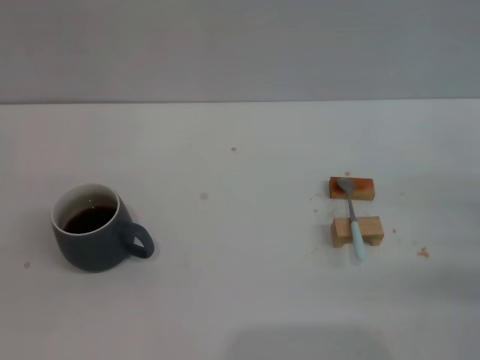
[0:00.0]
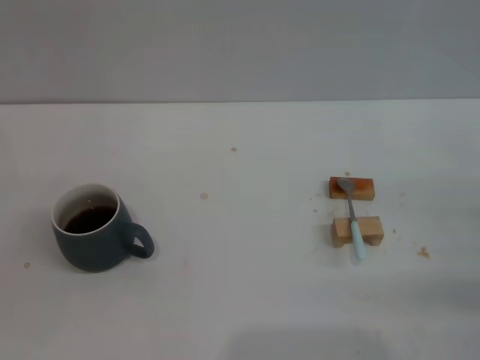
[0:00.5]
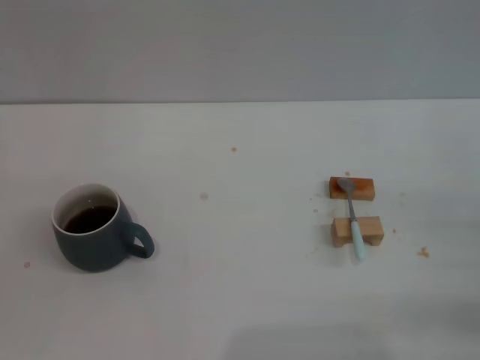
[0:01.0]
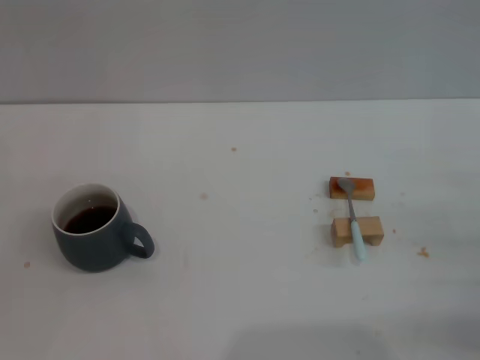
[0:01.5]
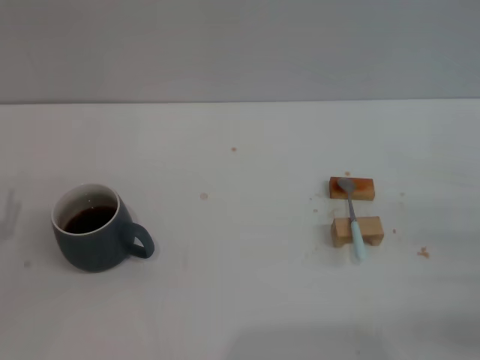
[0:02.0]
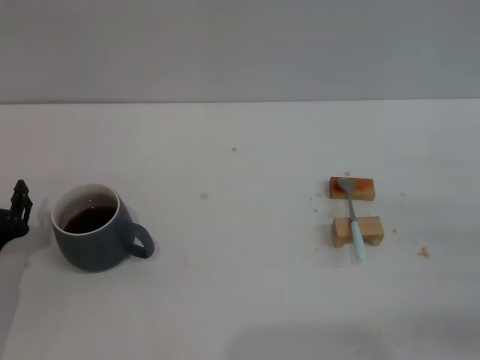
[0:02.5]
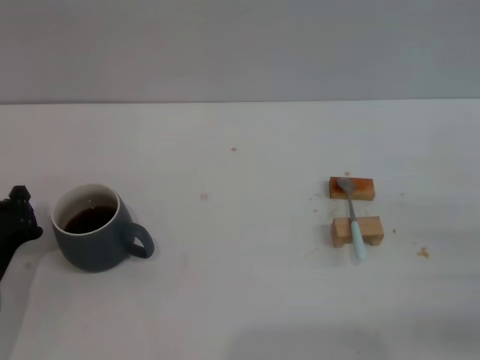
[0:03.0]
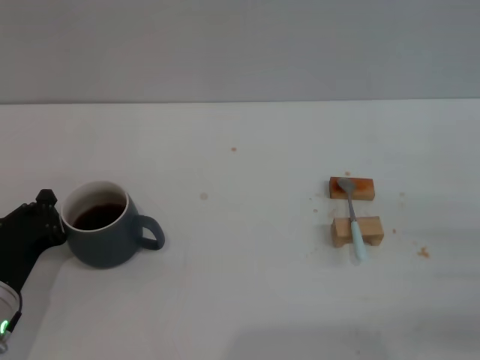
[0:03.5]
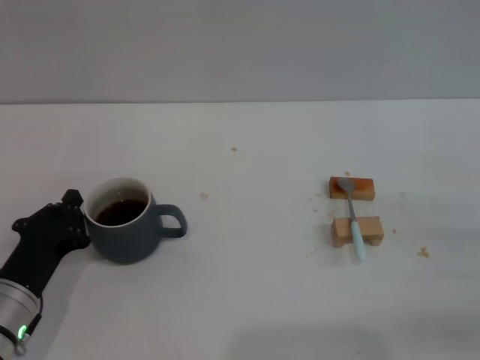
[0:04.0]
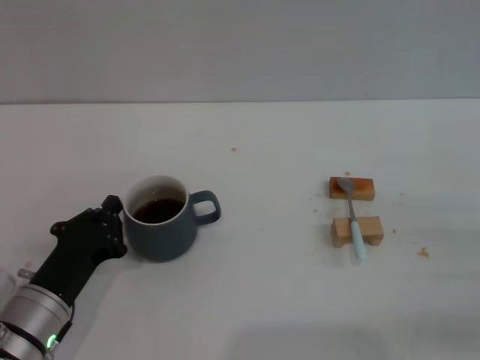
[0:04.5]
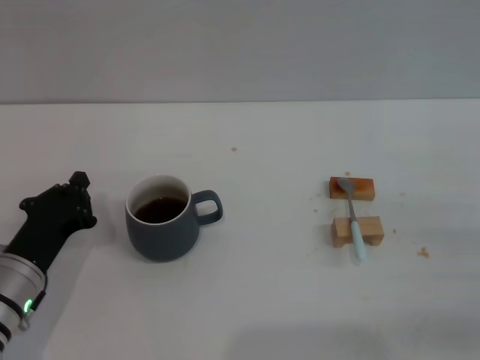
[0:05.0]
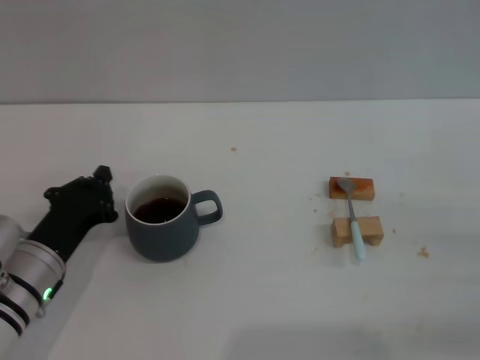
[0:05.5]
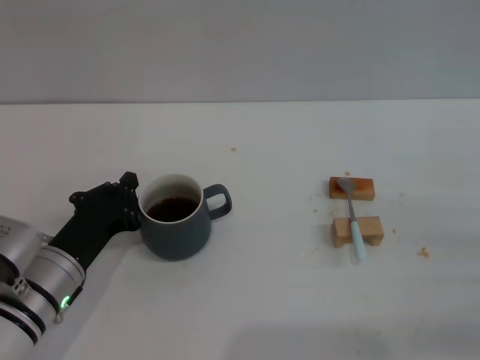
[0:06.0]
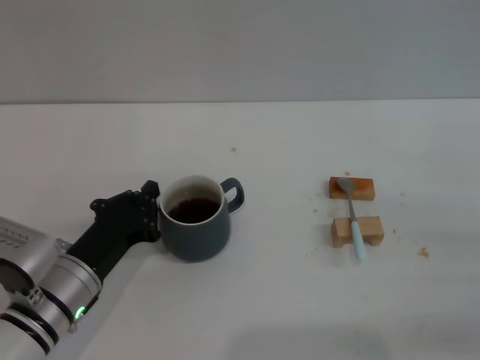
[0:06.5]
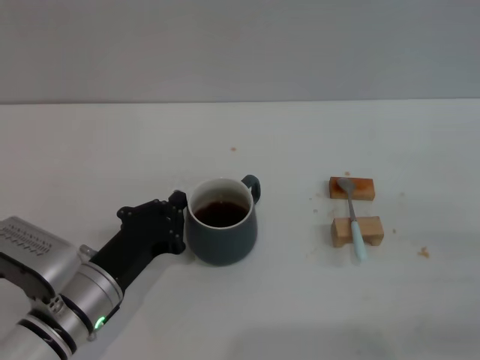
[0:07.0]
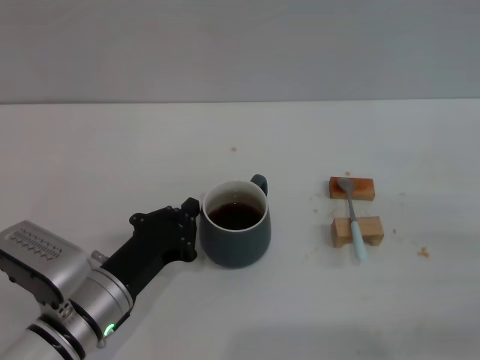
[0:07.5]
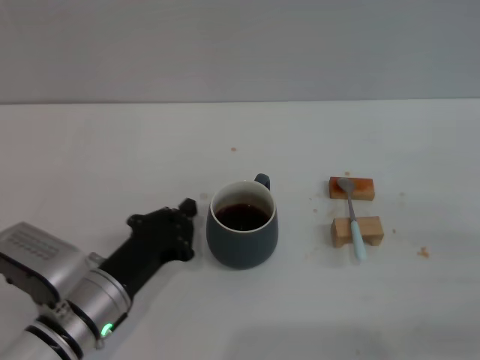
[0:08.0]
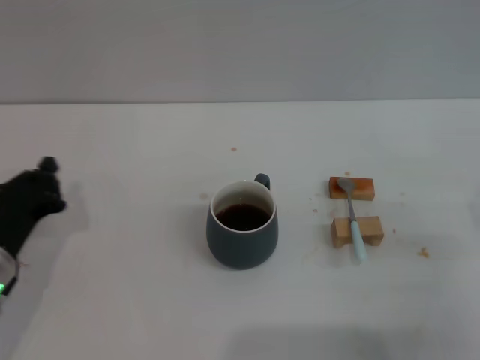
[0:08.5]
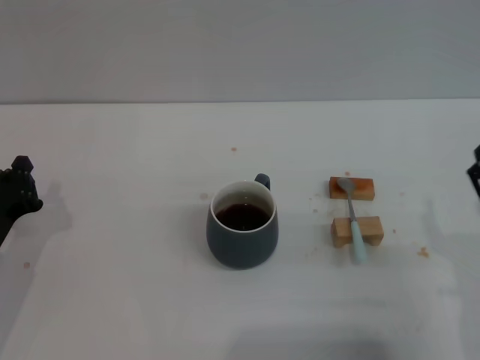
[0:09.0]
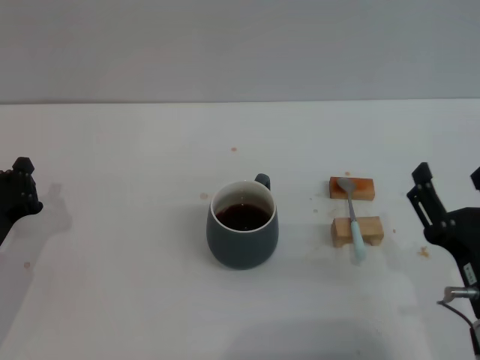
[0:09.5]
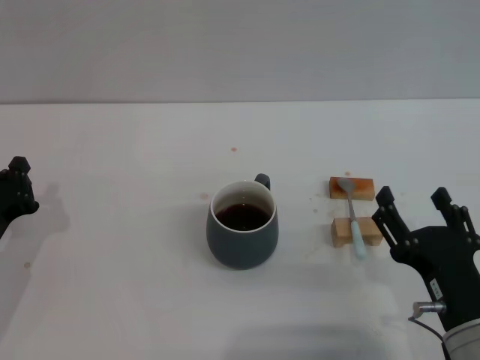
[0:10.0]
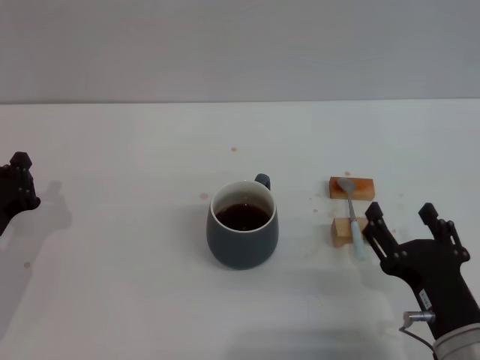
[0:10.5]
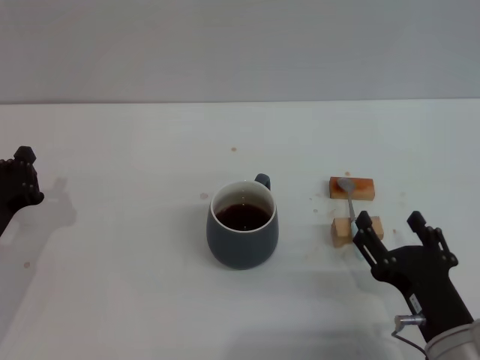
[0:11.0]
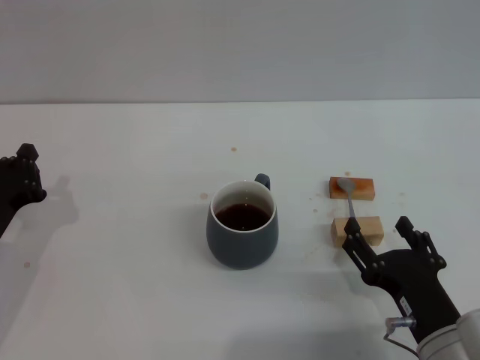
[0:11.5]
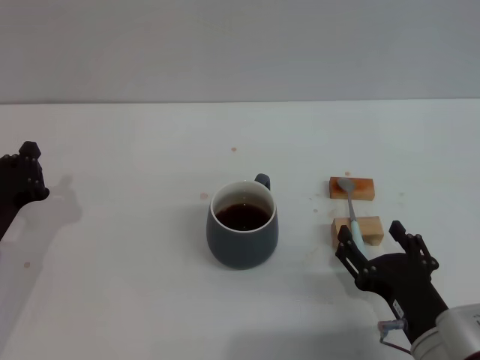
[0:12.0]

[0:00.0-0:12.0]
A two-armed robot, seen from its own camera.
Task of the whole recording: Move the grey cup to the center, lift the blue spoon, stir it three times in the cup, and put the spoon into the cup.
Step, 0:00.0 to 0:08.0: Move the cup with coffee to the center of view with the left gripper.
0:02.0 to 0:04.0: The left gripper is displaced to the right by roughly 10 cm, and closes its fingers.
0:04.0 to 0:06.0: The grippers move only a little.
0:06.0 to 0:08.0: There are only small adjustments of the grippers.
0:08.0 to 0:10.0: The grippers both shift to the left by roughly 15 cm.
0:10.0 to 0:12.0: The grippers move only a little.

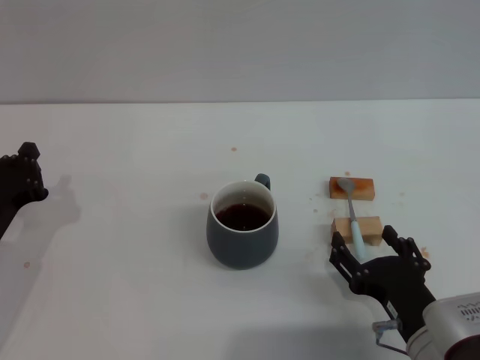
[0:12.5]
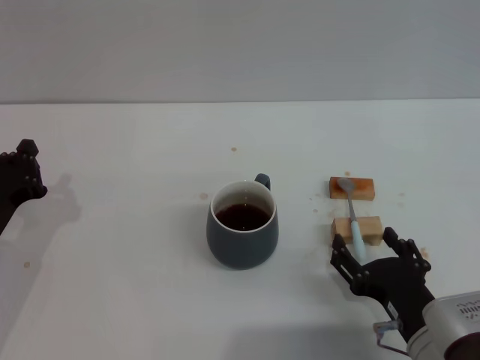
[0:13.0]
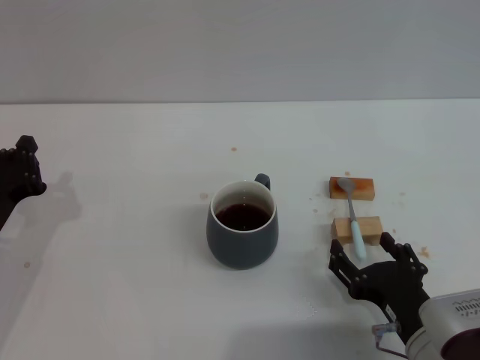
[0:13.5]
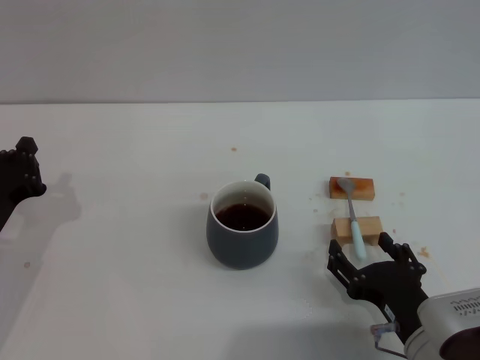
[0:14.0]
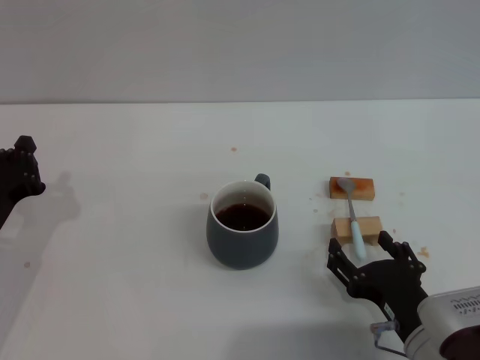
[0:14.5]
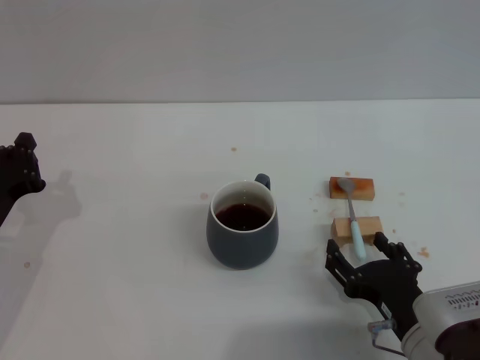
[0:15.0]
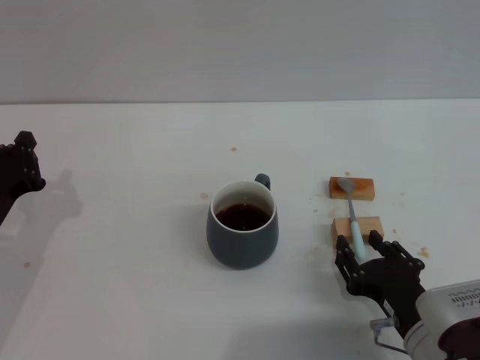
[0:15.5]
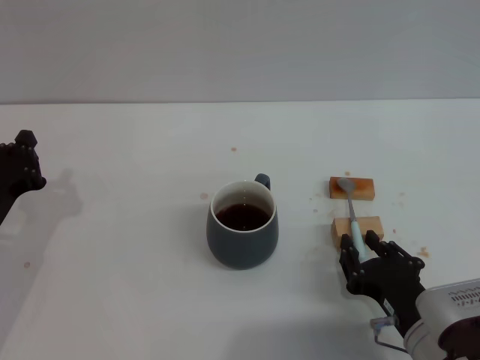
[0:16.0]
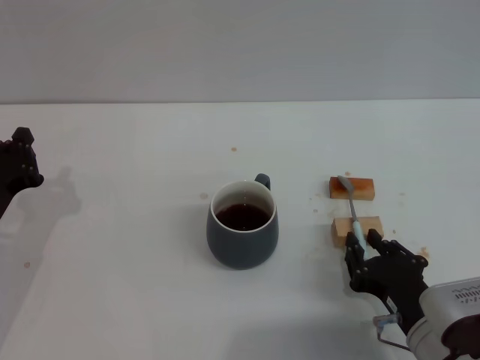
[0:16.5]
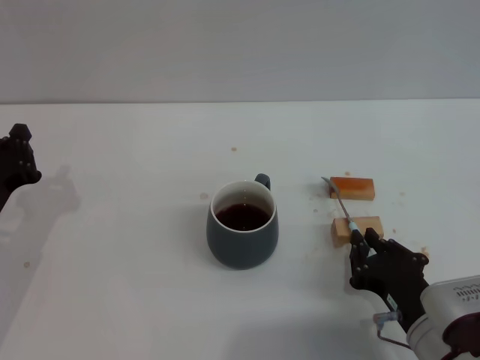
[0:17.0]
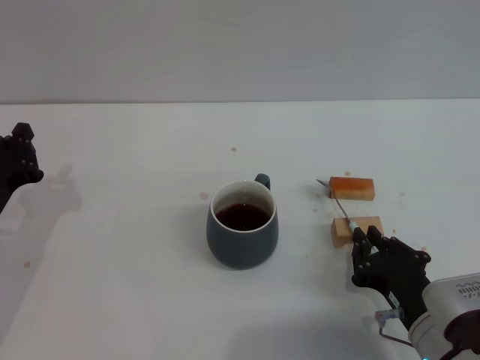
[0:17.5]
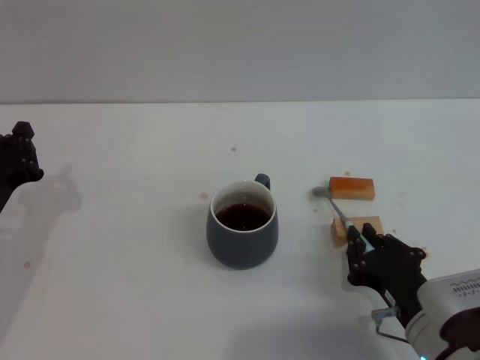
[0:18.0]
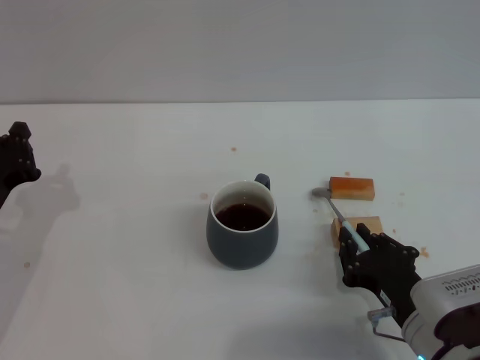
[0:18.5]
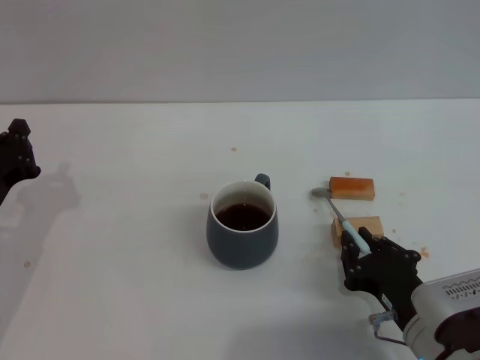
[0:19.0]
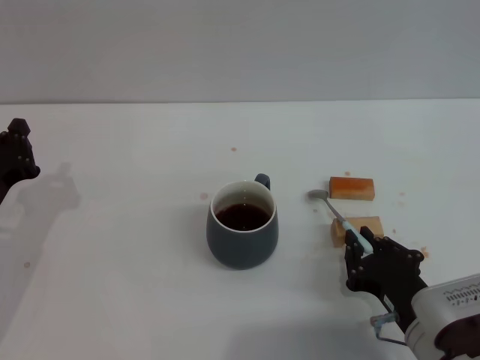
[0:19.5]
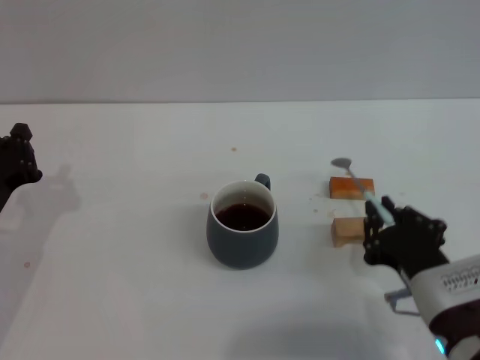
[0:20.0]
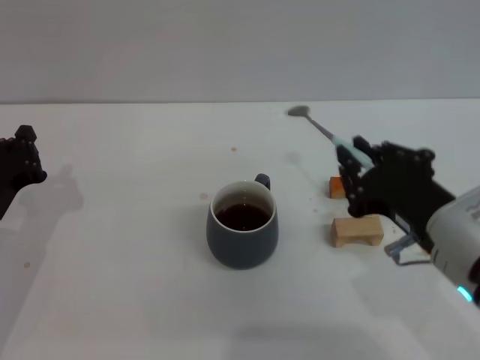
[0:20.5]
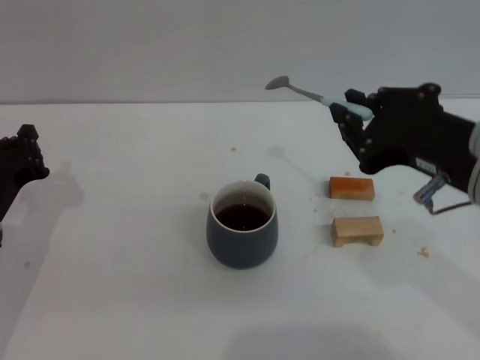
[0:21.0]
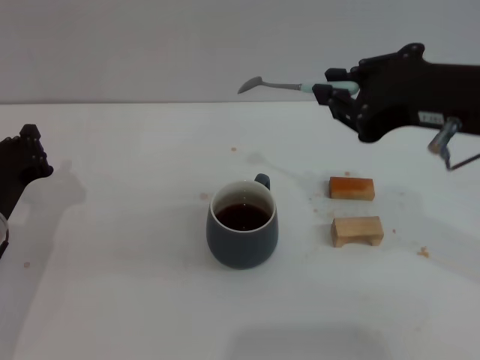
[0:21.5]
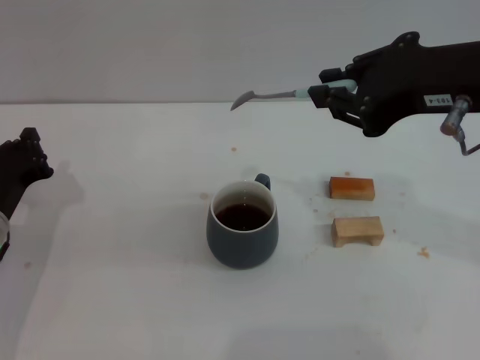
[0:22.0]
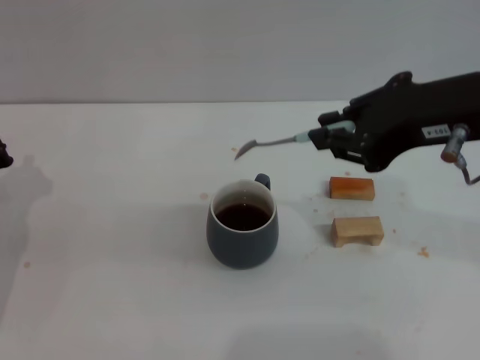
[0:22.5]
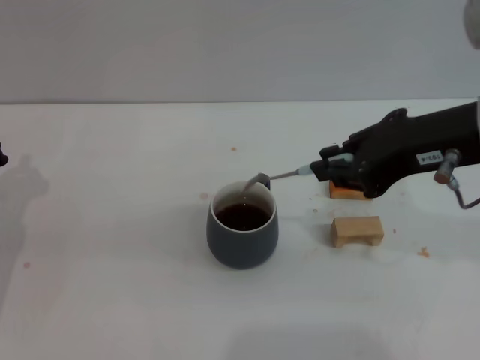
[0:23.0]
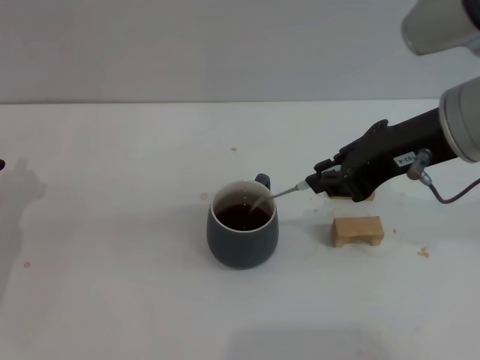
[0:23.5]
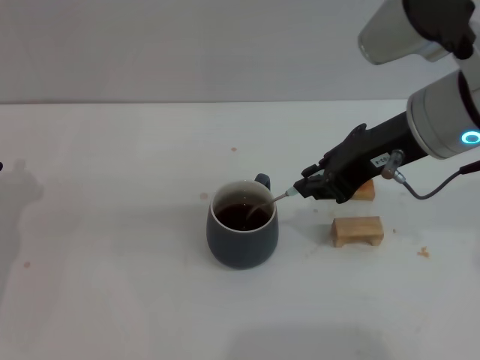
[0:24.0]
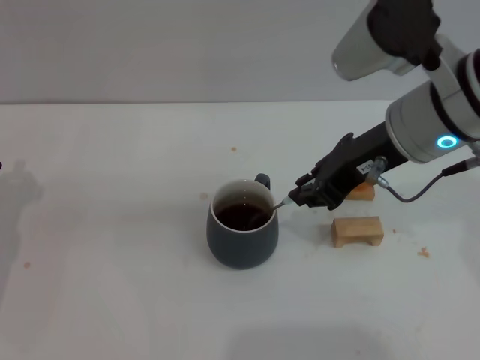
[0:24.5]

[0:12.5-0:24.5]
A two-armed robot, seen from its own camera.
Task of the whole recording: Move the grey cup to the center, lift the blue spoon, stir it three times in the cup, and put the spoon into the cup.
Step, 0:12.5 to 0:20.0: Pick up the spoon with the right gripper.
0:12.5 to 0:14.5: Both grippers stay about where they are.
0:14.5 to 0:16.5: The right gripper closes up.
0:16.5 to 0:18.5: Both grippers stay put.
0:18.5 to 0:20.5: The right gripper heads upward, covering about 15 cm.
0:20.5 to 0:22.5: The right gripper moves upward and forward, some 15 cm.
0:22.5 to 0:24.5: The right gripper heads forward and downward, covering some 10 cm.

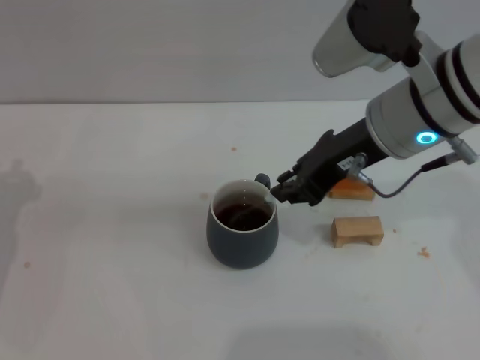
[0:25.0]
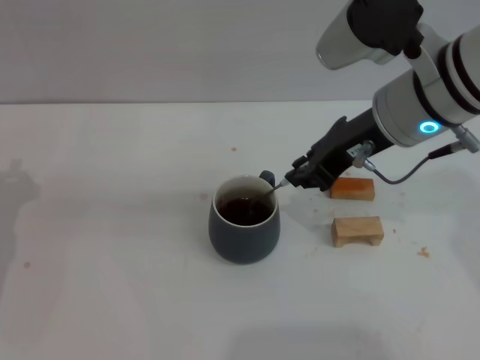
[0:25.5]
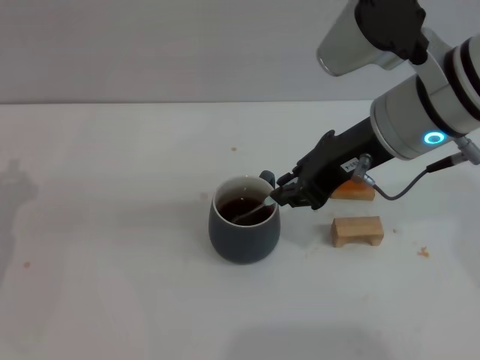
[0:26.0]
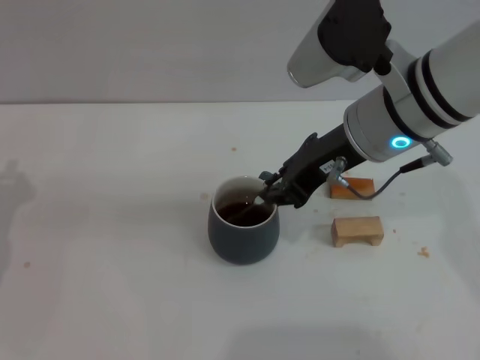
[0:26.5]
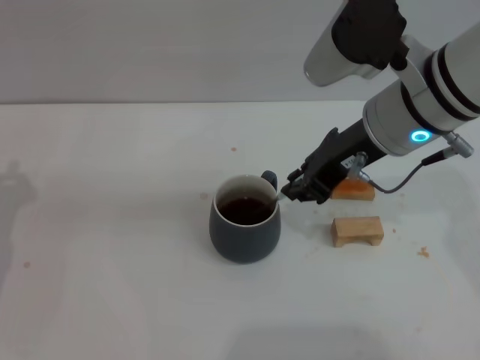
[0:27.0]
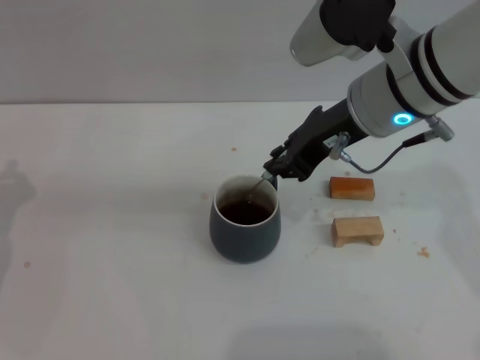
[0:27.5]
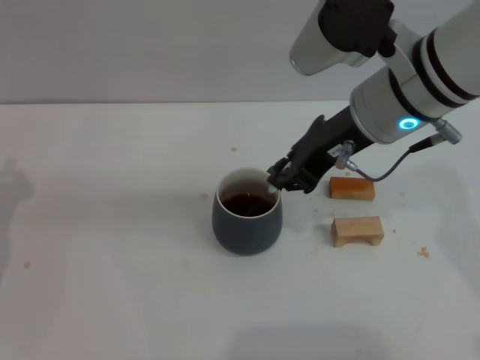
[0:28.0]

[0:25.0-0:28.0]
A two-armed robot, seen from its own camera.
Task of the whole recording: Move the grey cup to the center, lift the blue spoon, stir it three times in the cup, and put the spoon into the cup.
0:25.0 to 0:28.0: The grippers make only small movements.
